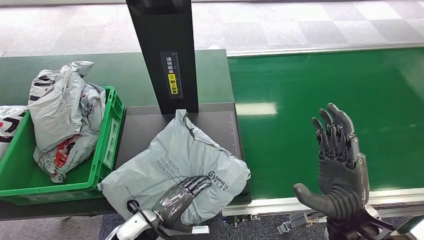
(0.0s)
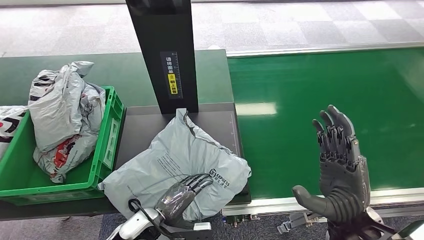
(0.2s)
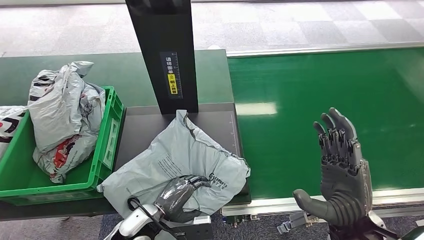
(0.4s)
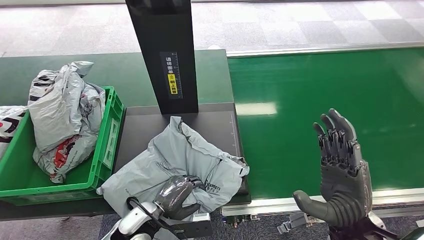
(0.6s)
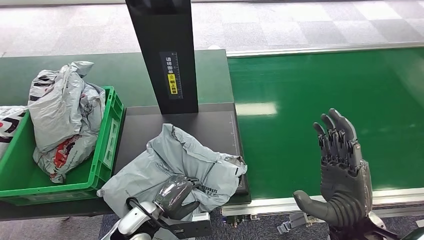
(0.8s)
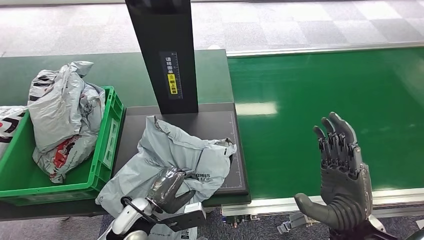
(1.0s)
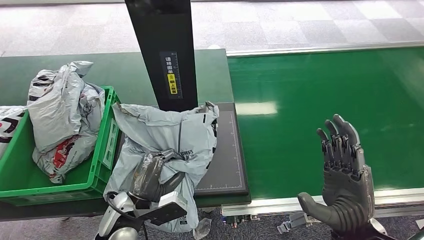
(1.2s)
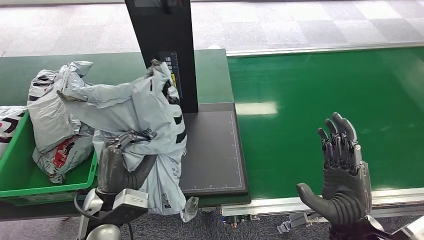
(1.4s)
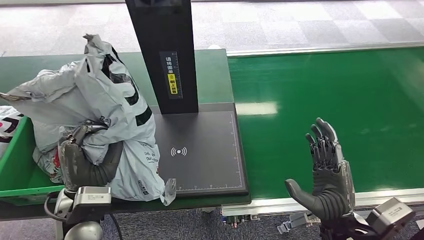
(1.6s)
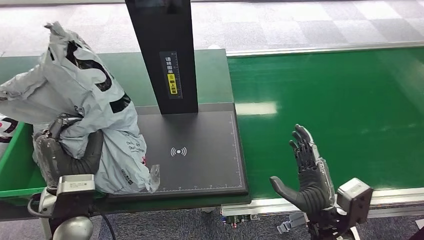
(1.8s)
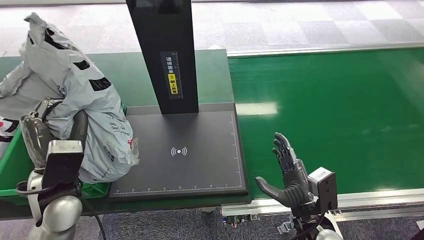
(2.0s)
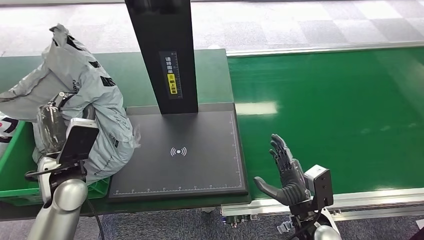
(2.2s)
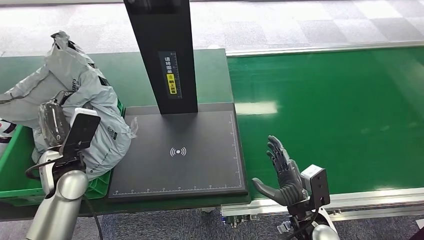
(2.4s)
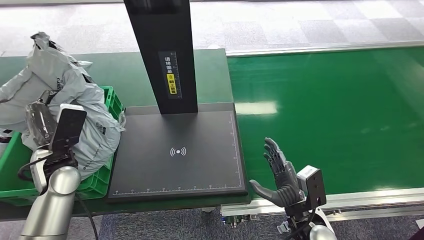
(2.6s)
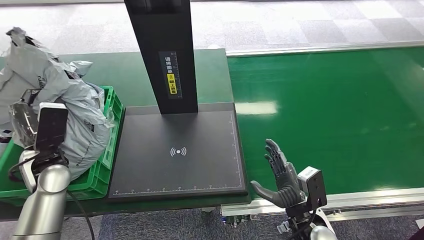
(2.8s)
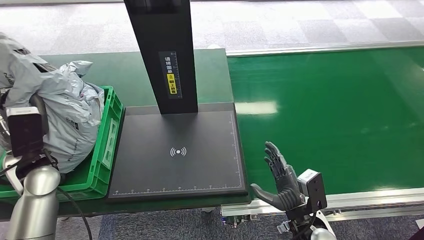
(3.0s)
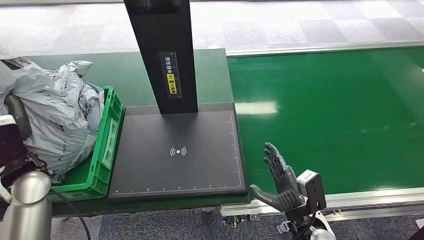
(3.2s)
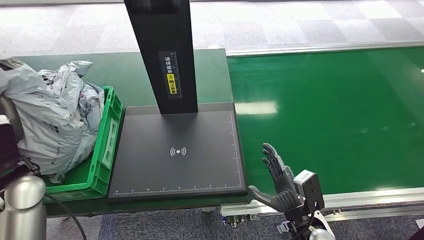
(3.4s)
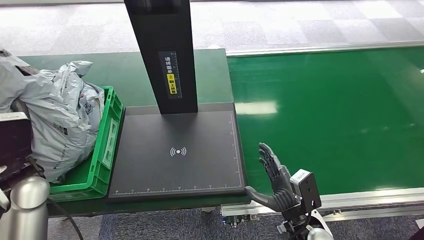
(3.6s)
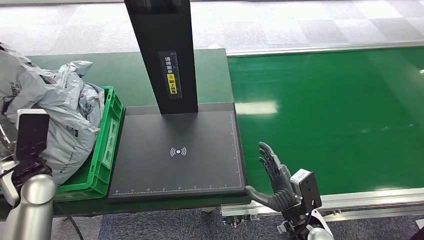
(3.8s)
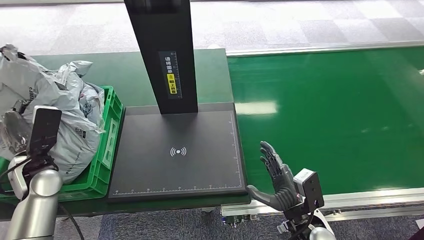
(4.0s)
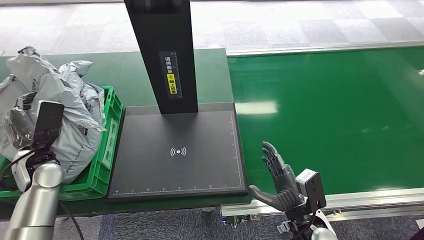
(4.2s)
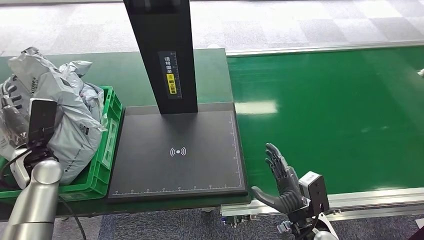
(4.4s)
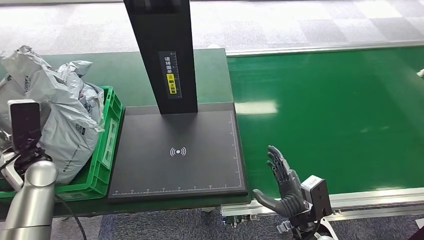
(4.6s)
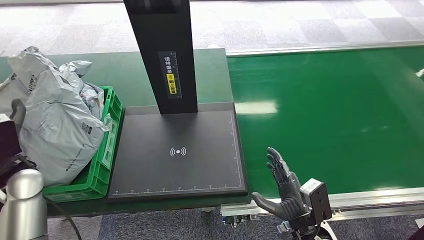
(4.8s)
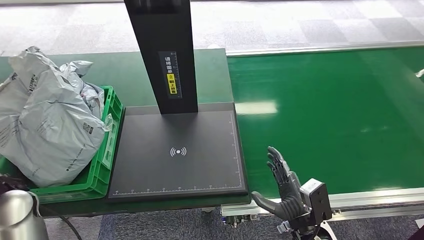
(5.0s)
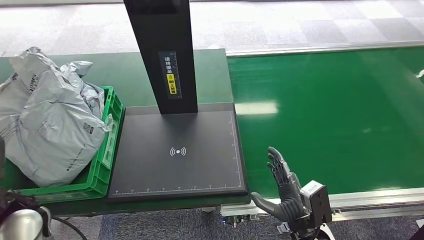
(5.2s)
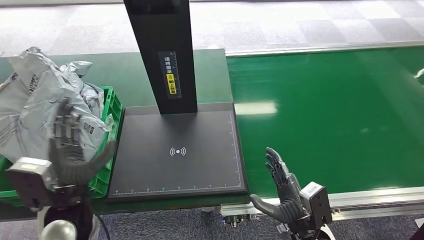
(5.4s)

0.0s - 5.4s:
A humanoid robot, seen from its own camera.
Step, 1.8s - 5.4s: Place the package into the parcel locker.
2.8s - 4.0s: The hands stay close to where they were, moving slightly.
4.0s - 5.4s: The left hand shifts about 15 cm to the right and backward.
